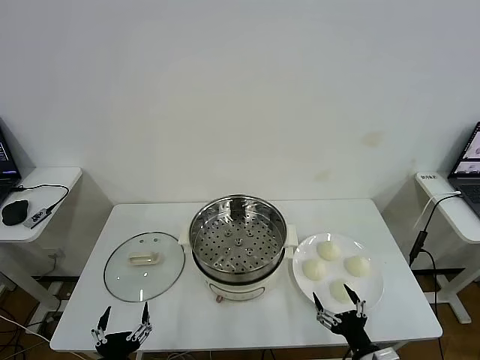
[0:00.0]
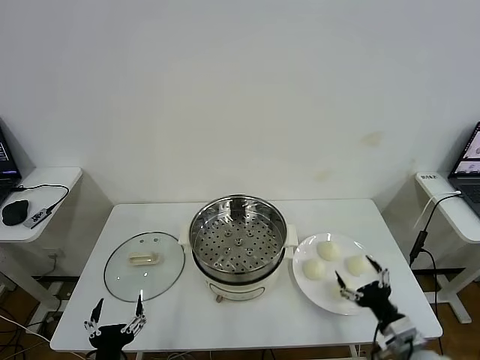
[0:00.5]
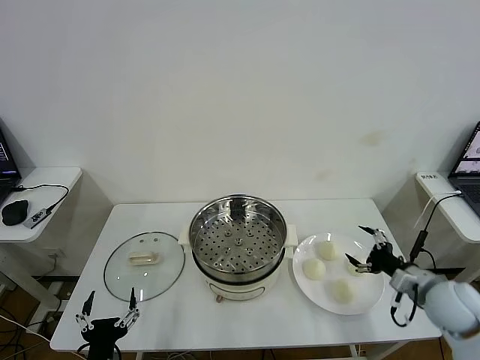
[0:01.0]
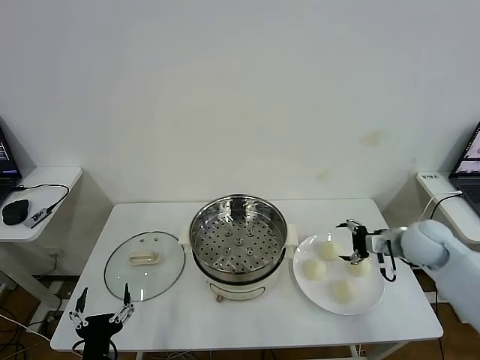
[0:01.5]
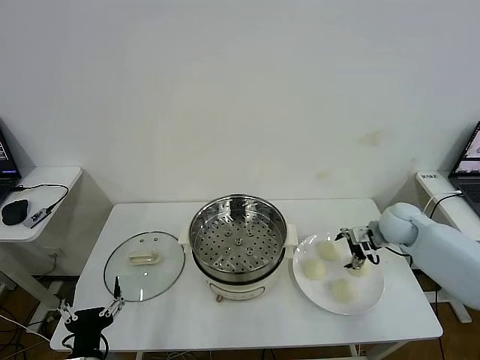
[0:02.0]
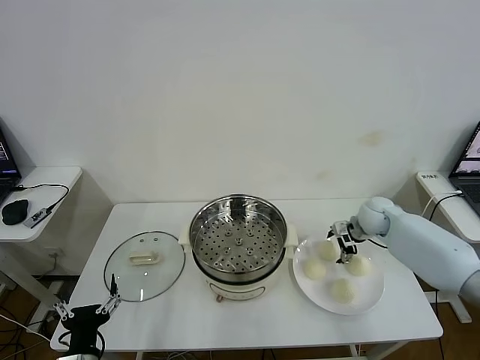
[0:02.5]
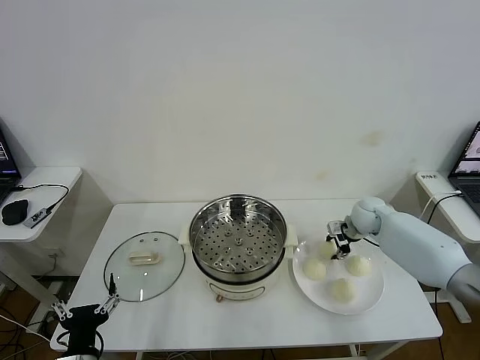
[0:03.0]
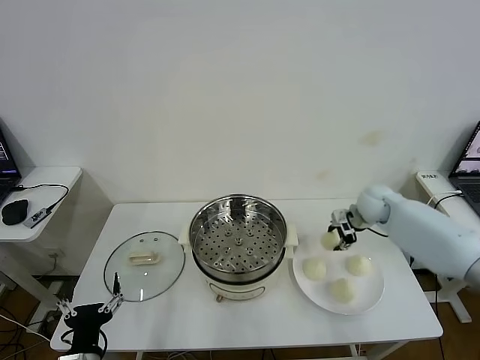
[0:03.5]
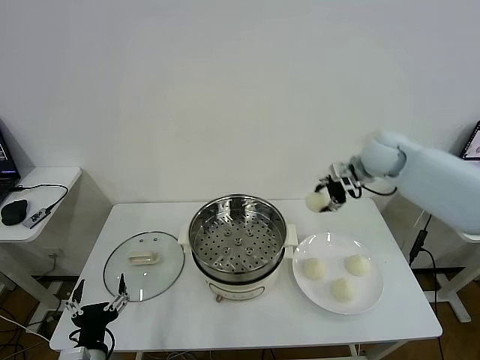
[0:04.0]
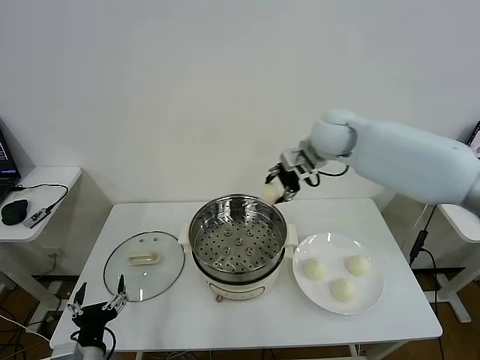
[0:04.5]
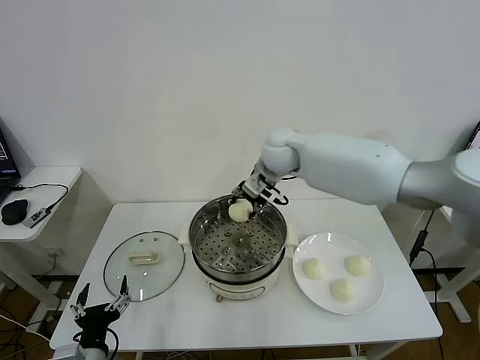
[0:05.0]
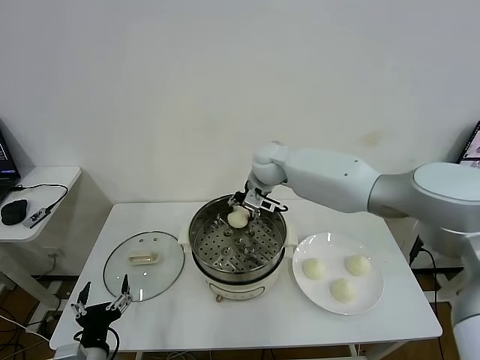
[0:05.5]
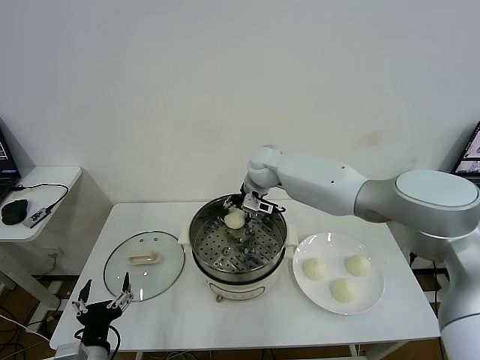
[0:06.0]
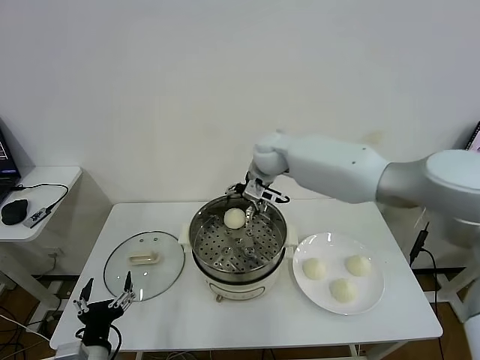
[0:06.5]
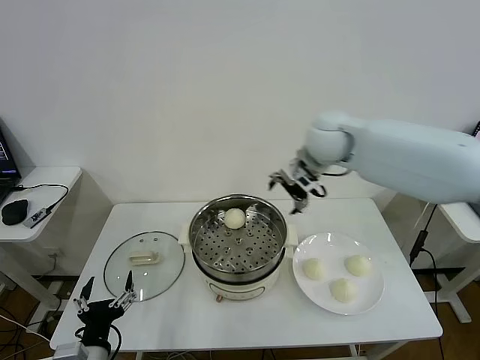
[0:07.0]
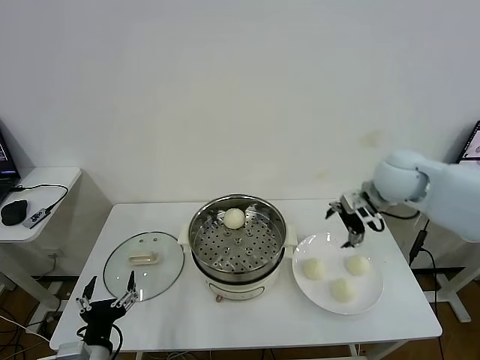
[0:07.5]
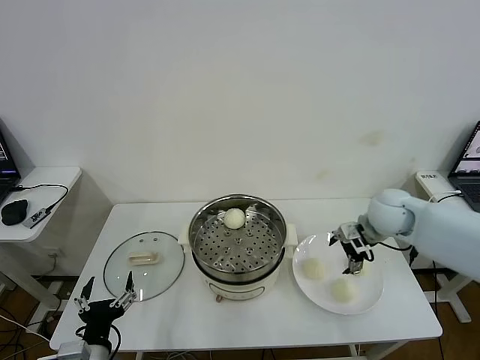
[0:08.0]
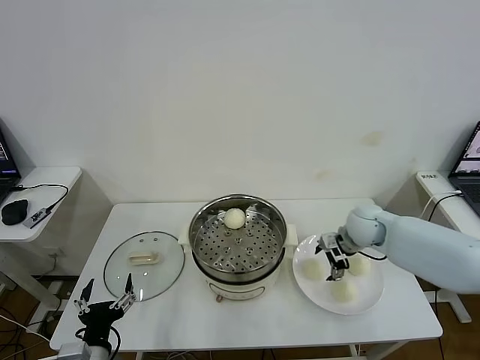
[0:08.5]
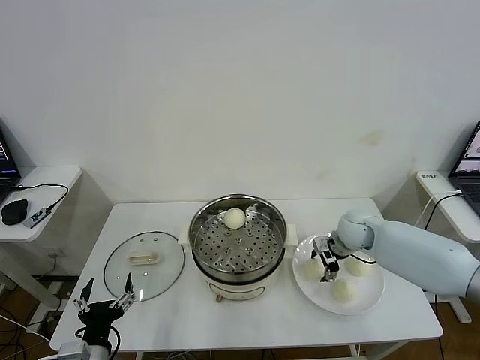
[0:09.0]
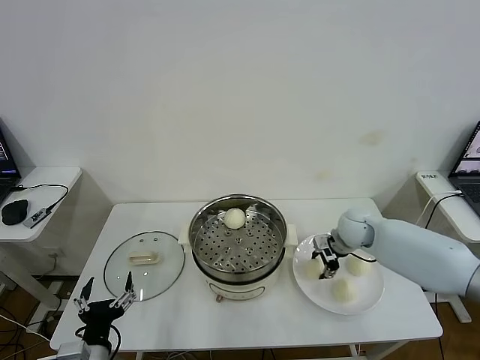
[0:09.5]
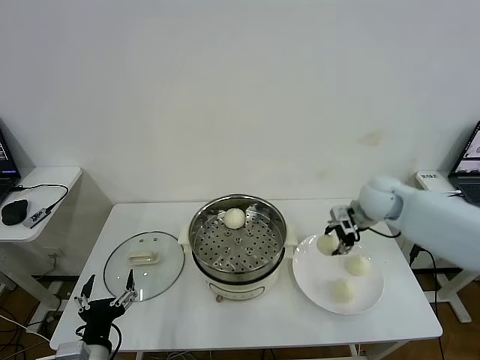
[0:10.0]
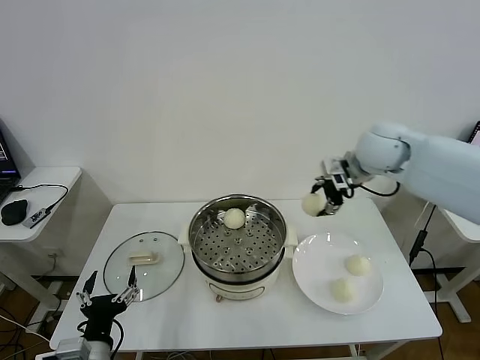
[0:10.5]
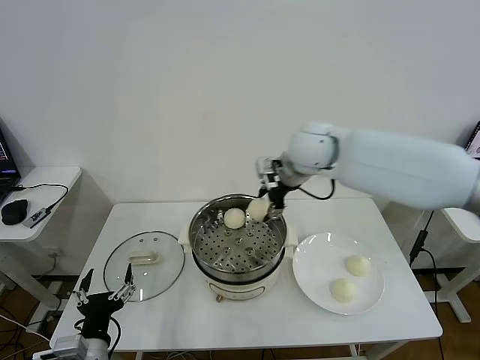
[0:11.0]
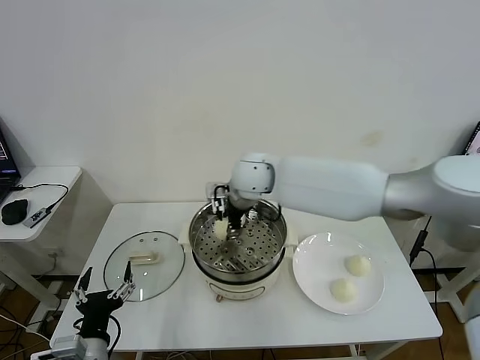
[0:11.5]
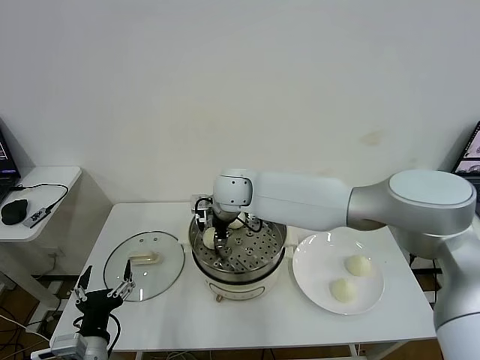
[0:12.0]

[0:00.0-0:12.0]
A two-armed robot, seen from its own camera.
Task of the whole recording: take steamed baozi put them in steamer then cover it.
Step, 0.0 to 3.0 s: Grasp the baozi in the plate with right gripper.
Step, 3.5 to 6.0 s: Place the baozi on the steamer with right gripper.
Step, 6.5 to 9.0 s: Grasp the baozi in the plate with right gripper.
2.0 to 4.0 s: The right gripper goes about 20 cm upward and to the left, and closes up.
4.0 to 6.0 s: The right gripper travels to the left and downward by approximately 25 cm, and opens up.
6.0 to 8.0 s: The right gripper moves to the right and backward, approximately 30 cm, and opens.
8.0 to 10.0 s: The right gripper heads upward, covering some 5 cm, and closes.
10.0 to 12.0 s: The right gripper heads to the left, covering roughly 35 cm.

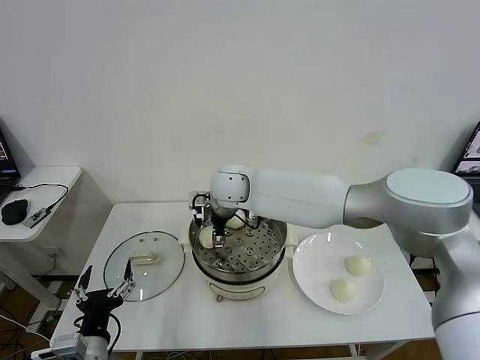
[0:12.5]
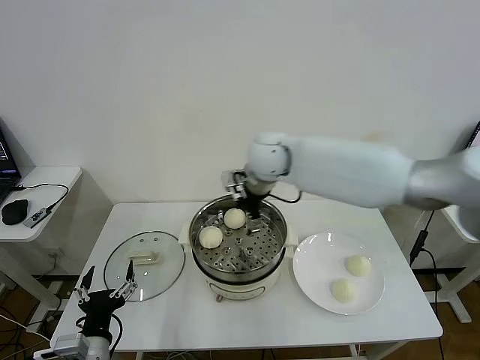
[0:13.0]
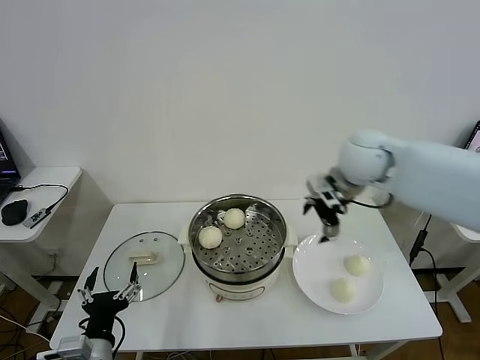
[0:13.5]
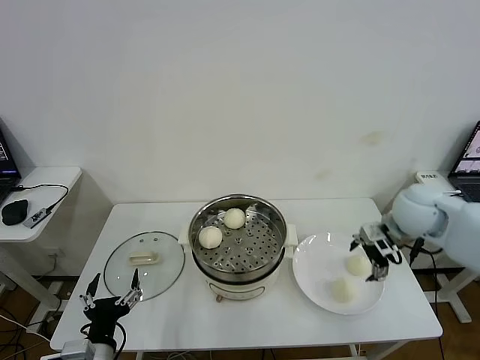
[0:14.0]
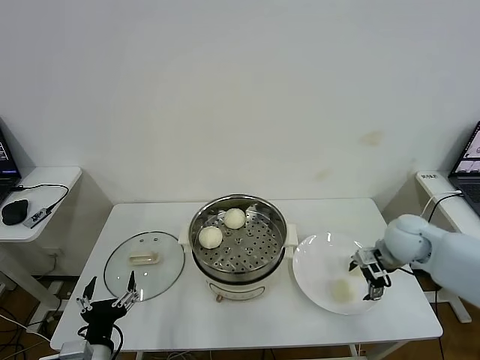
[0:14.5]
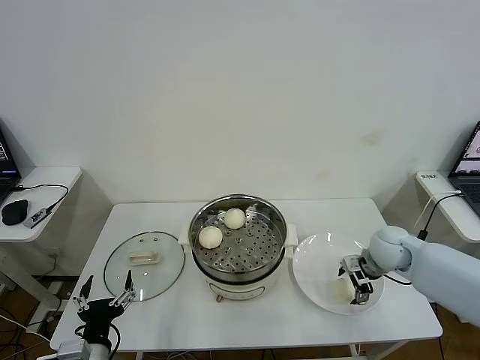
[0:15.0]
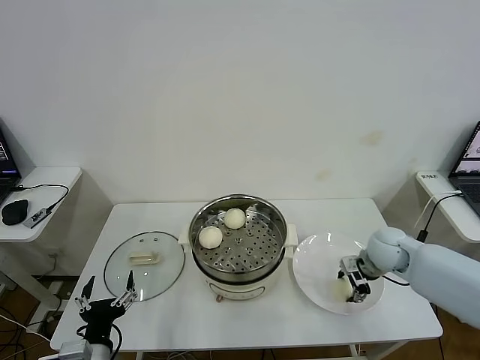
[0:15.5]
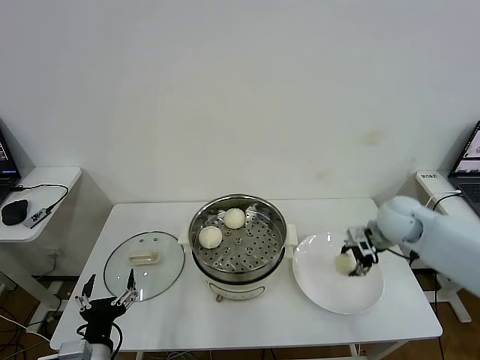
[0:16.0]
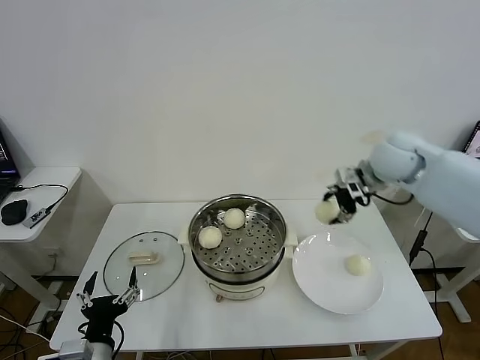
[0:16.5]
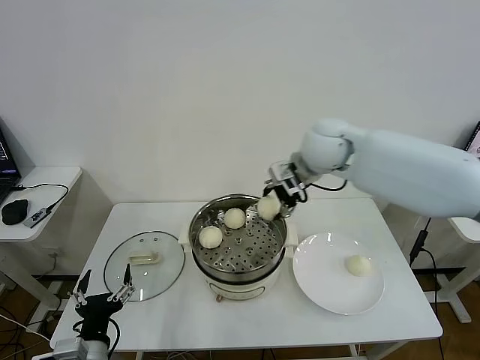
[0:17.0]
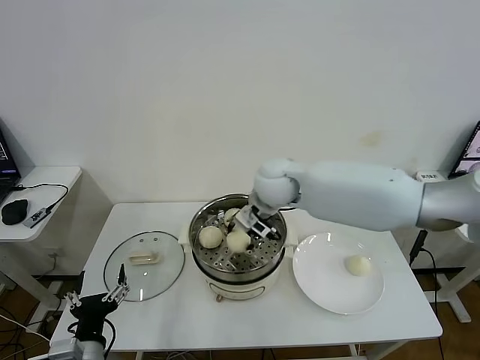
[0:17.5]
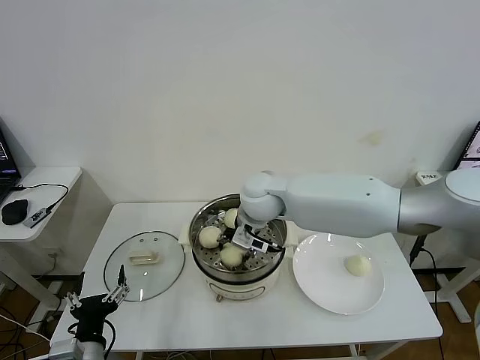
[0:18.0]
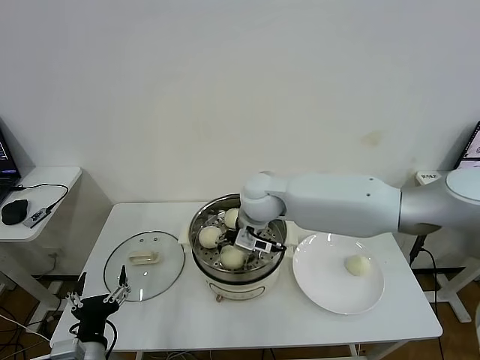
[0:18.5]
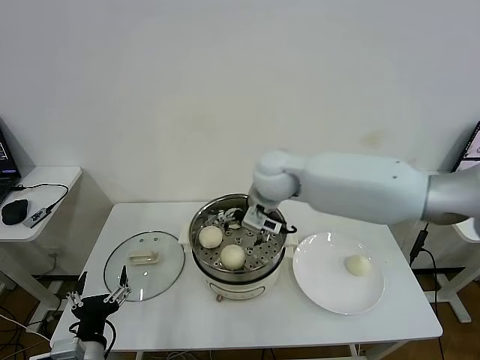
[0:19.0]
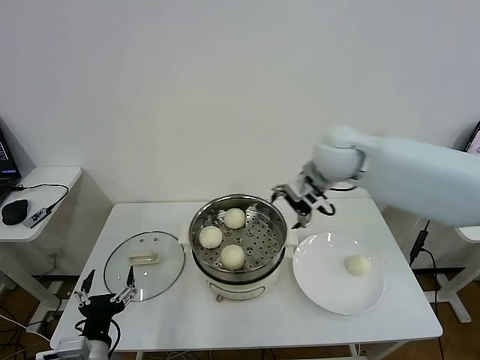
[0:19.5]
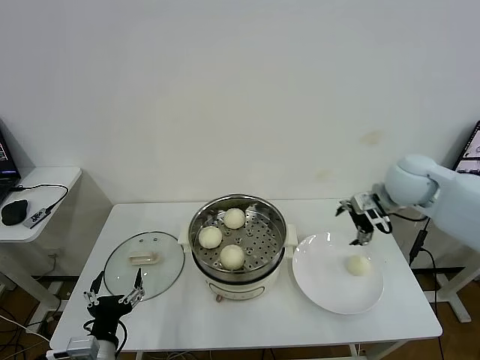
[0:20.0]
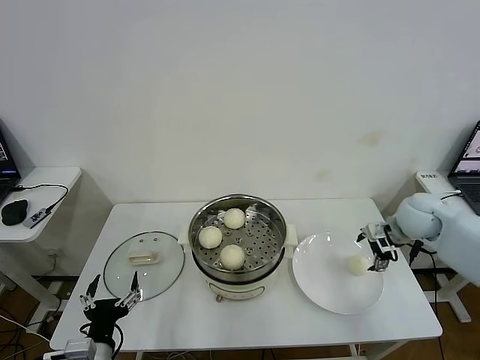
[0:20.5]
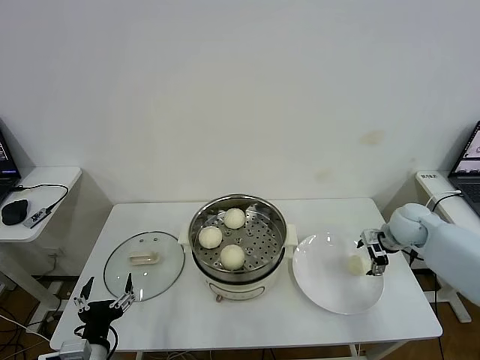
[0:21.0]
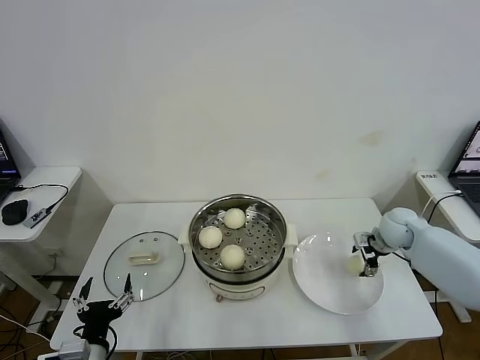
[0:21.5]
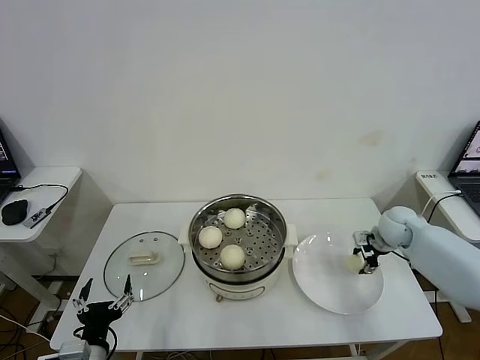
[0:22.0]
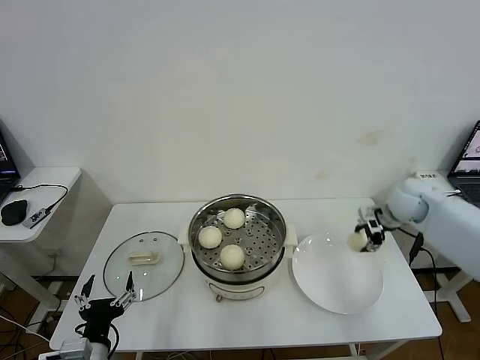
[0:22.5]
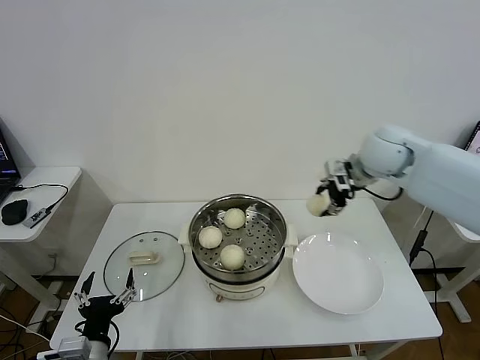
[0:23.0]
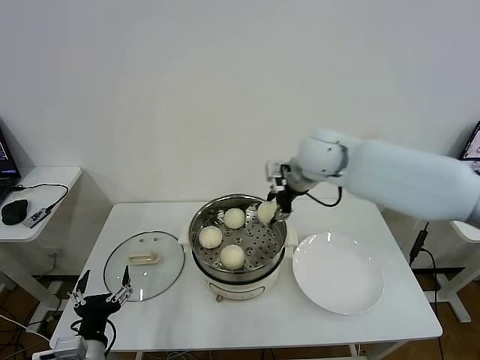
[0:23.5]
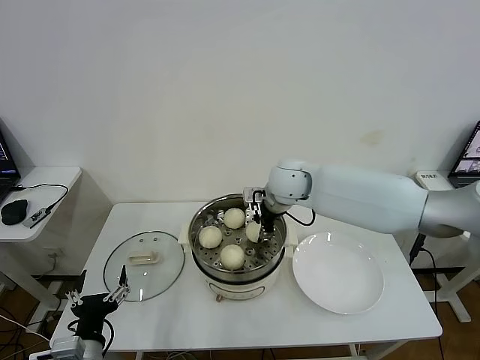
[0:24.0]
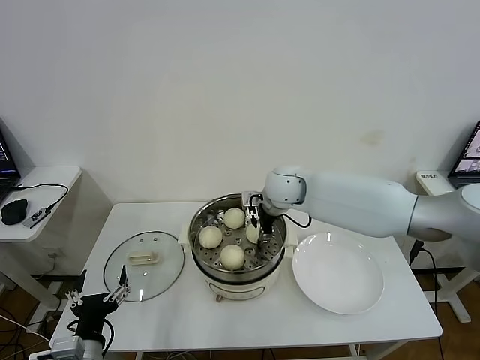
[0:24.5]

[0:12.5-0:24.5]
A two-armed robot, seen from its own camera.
Task of the whole recording: take steamed baozi put them in steamer then cover it.
Step, 13.0 to 15.5 s: Grasp the baozi in the plate with right gripper.
Step, 16.0 to 18.5 s: Place the baozi on the steamer with right gripper.
Step, 19.0 to 22.0 s: Grasp the baozi in the plate with right gripper.
12.5 to 14.5 s: The right gripper shifts about 40 cm to the right.
14.5 to 16.5 s: The right gripper goes approximately 20 cm upward, forward and to the left, and closes its fingers.
16.5 to 18.5 s: The right gripper travels to the left by some 25 cm, and opens.
18.5 to 20.5 s: The right gripper shifts approximately 35 cm to the right.
20.5 to 22.5 s: The right gripper travels downward and back again, about 10 cm each way, and closes.
22.5 to 24.5 s: The right gripper travels to the left by about 30 cm.

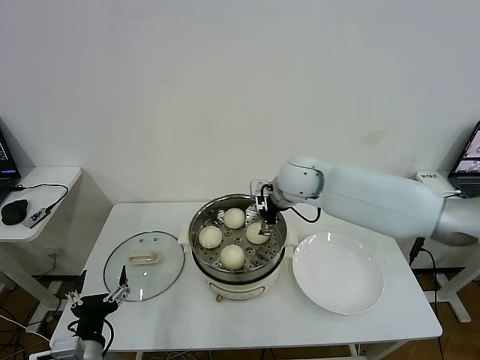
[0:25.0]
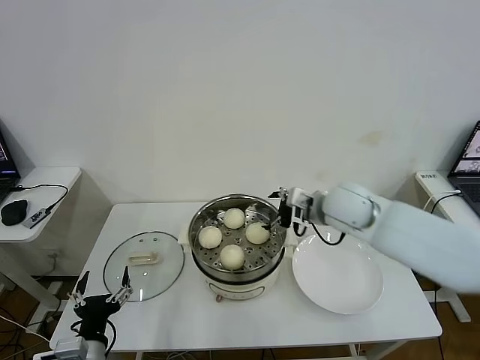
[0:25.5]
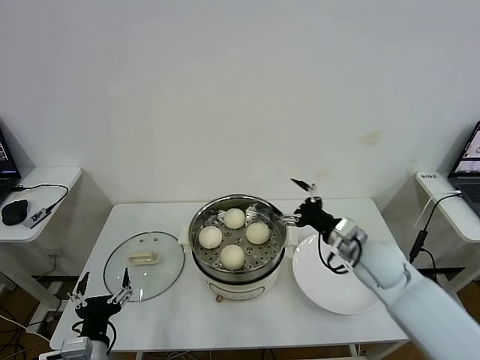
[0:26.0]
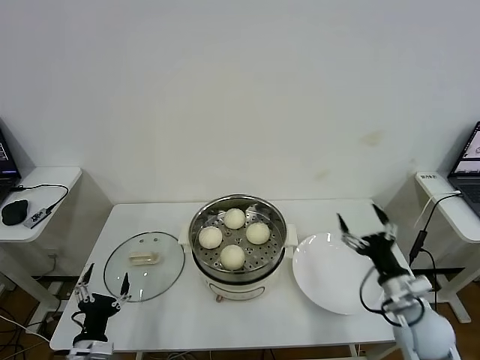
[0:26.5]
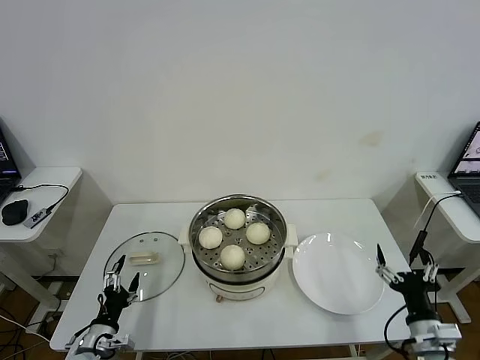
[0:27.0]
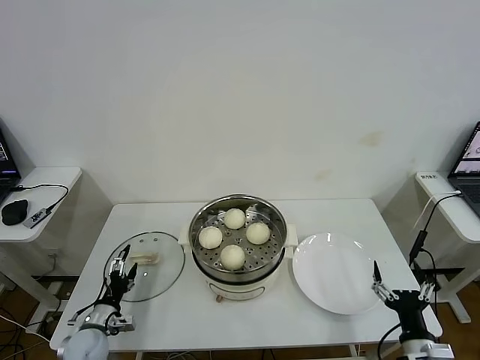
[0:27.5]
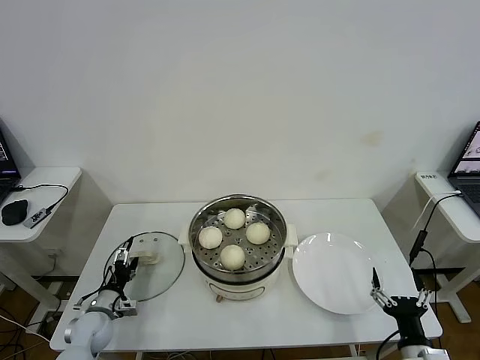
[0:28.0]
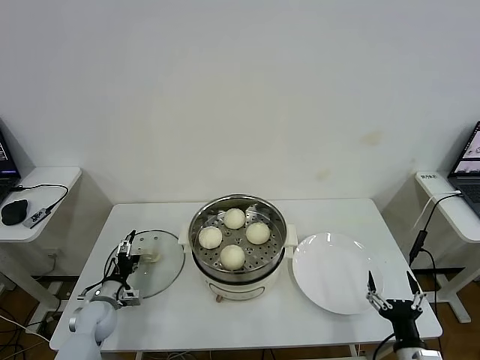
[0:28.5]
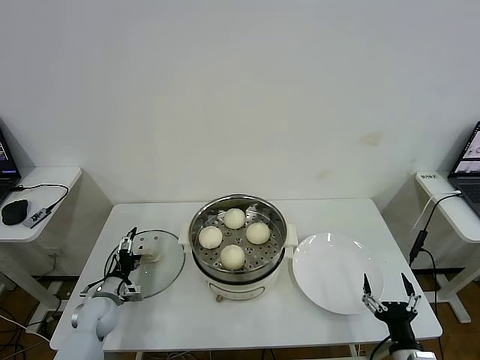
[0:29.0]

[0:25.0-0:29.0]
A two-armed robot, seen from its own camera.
Task of the whole recording: take steamed baozi put them in steamer then cover it.
25.0 to 27.0 s: The right gripper heads backward, to the right and downward, covering approximately 50 cm. The left gripper travels downward, to the left and forward by some 15 cm.
27.0 to 29.0 s: The left gripper heads forward, covering about 15 cm, while the right gripper moves some 5 cm.
